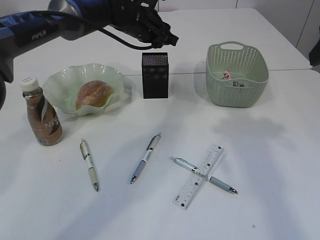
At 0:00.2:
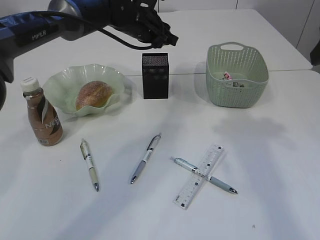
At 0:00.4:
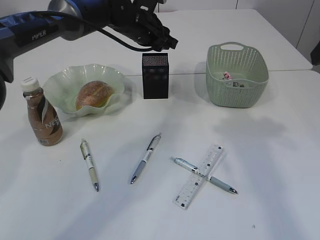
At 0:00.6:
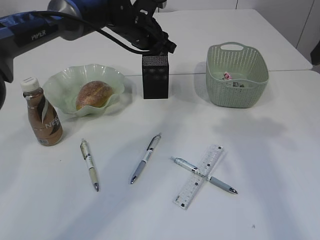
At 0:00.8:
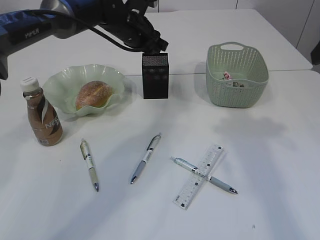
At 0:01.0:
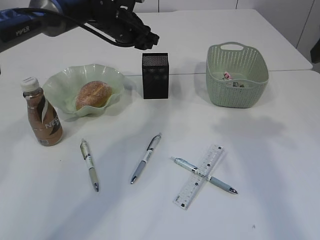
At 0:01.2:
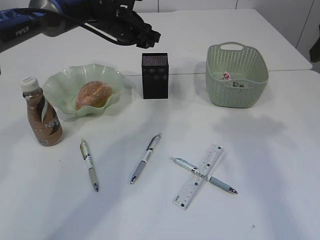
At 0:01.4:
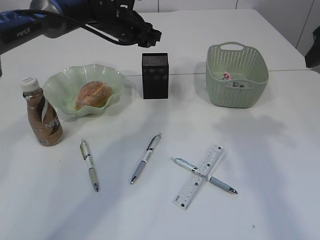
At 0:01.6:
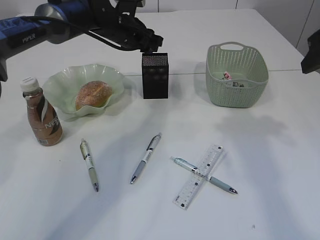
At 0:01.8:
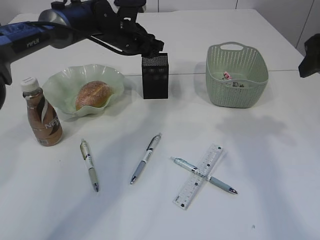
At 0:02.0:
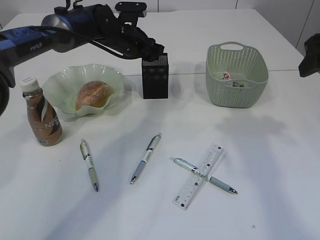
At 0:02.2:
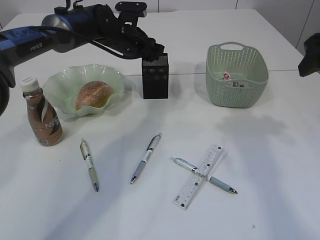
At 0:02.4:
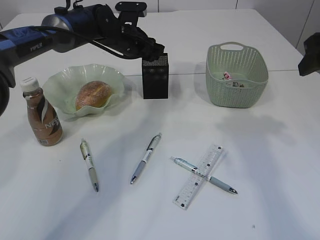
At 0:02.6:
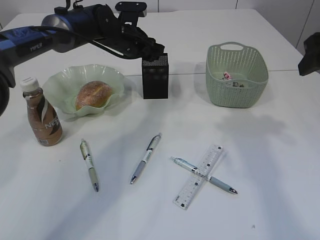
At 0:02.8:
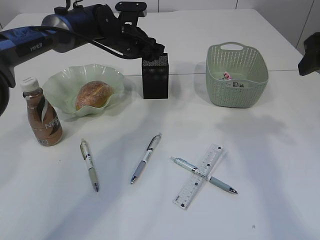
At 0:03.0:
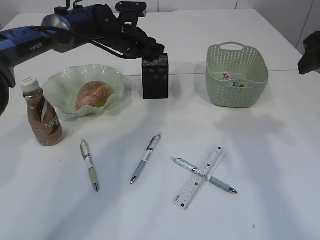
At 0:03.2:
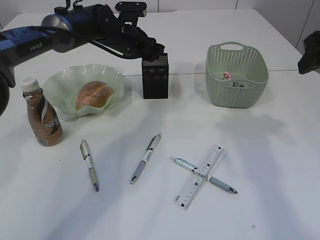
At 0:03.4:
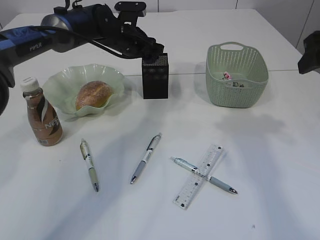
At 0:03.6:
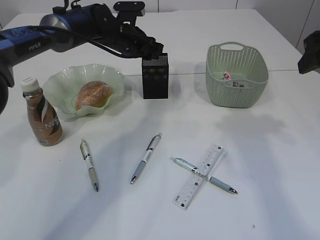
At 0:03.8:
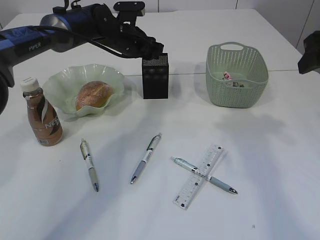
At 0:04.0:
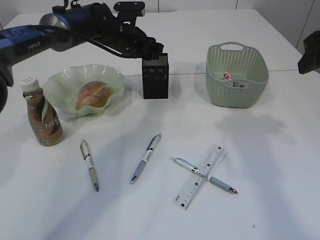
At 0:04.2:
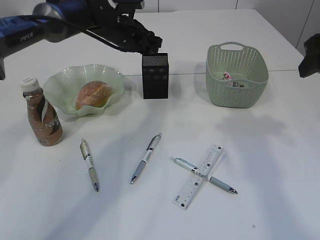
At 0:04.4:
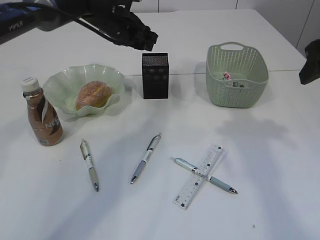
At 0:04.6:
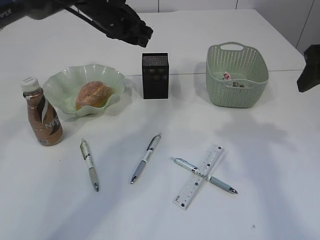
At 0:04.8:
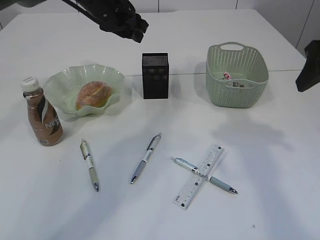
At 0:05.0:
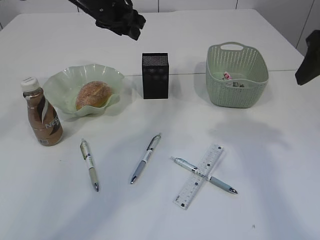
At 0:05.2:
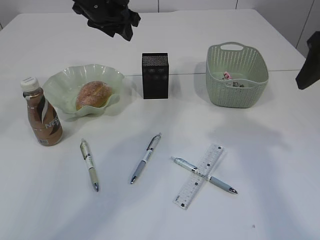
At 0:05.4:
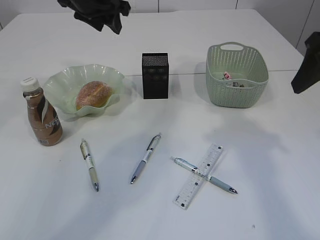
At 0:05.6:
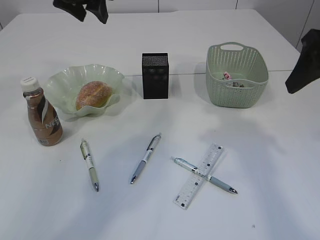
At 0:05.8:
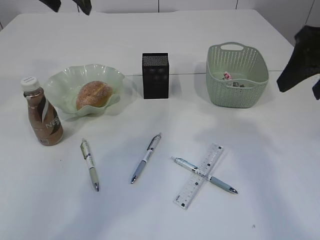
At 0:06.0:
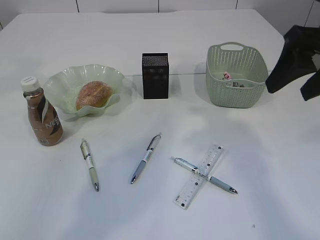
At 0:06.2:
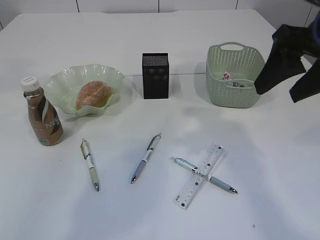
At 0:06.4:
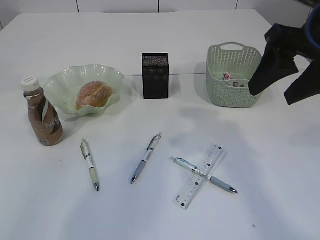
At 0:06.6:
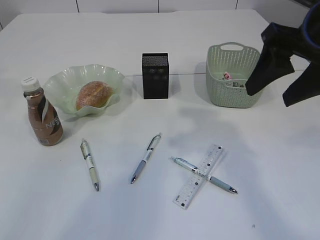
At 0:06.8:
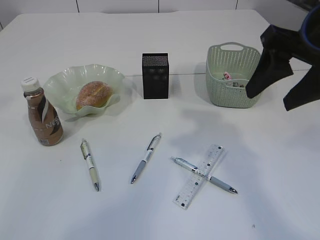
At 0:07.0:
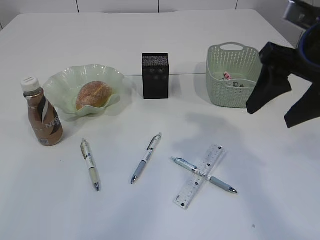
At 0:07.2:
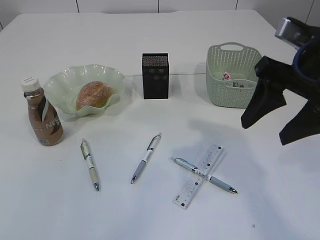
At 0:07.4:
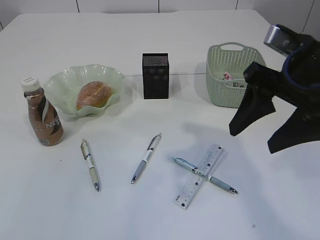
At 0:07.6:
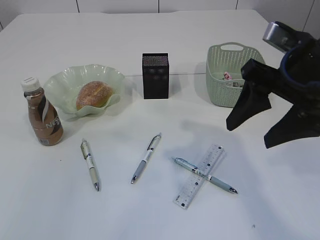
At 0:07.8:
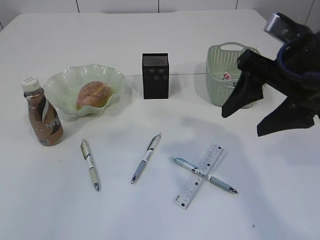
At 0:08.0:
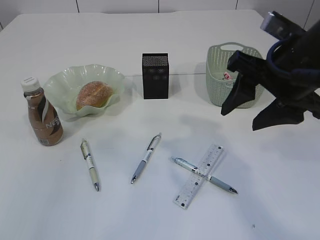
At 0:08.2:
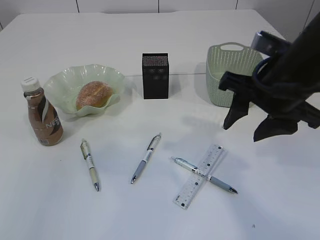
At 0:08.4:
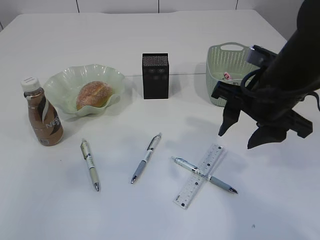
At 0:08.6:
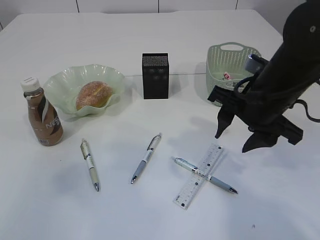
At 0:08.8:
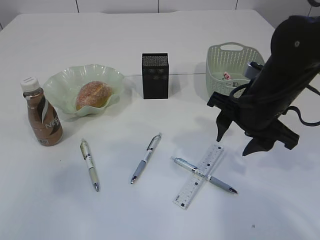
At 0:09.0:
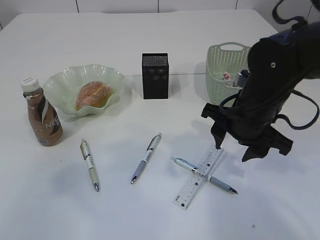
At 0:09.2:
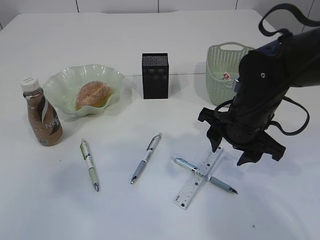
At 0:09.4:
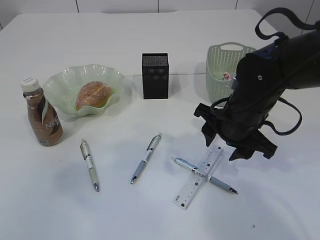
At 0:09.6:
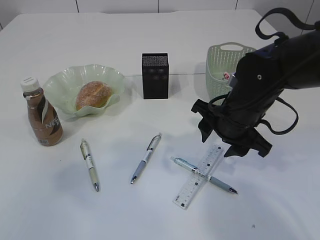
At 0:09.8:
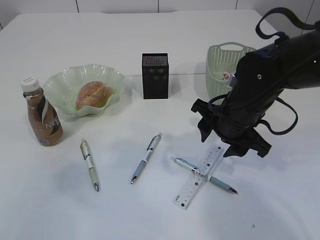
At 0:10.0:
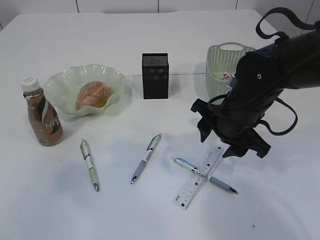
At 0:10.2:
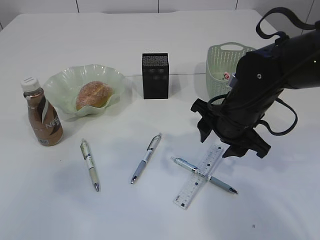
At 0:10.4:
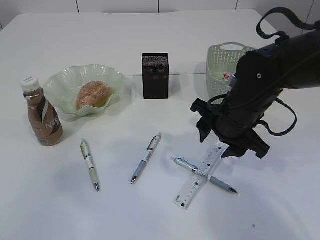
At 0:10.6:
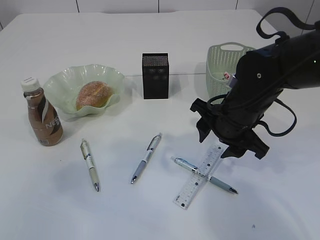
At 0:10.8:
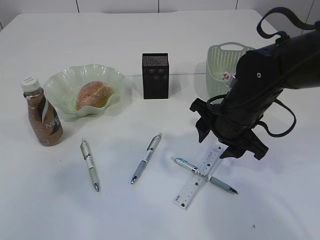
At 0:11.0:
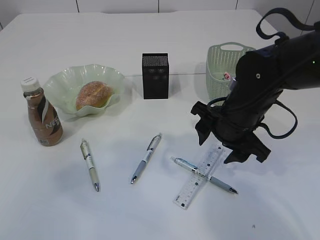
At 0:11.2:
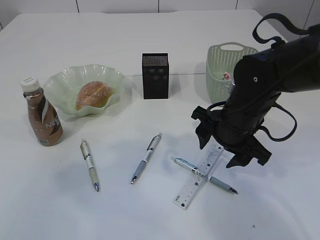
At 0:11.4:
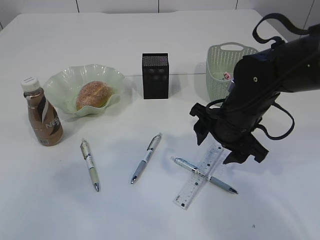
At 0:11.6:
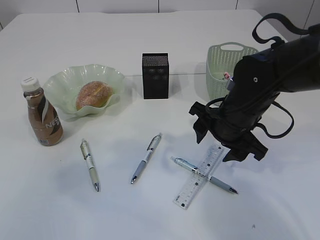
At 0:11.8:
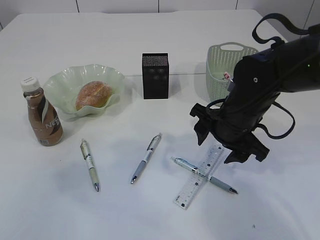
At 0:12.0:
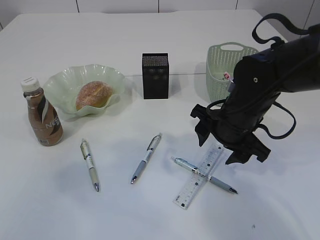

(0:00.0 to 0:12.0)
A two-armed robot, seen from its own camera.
Step, 0:00.0 - 0:04.6: Place the blue pencil sharpener into the pen holder.
0:00.0 - 0:03.0: There are only small adjustments of the grippers.
0:03.0 - 0:04.4: The grippers move only a little.
0:04.4 - 0:06.0: The left gripper travels upward, backward and to the left by about 20 cm, and opens up; the right gripper moves roughly 5 cm.
0:06.0 - 0:07.6: The left gripper goes roughly 25 cm backward, while the right gripper shifts by roughly 5 cm.
0:07.6 - 0:09.0: The right gripper travels downward and forward by approximately 10 cm. Meanwhile the left gripper travels downward by about 10 cm.
0:09.0 - 0:10.4: The grippers make only small movements.
0:10.4 - 0:12.0: Both grippers stay about where they are.

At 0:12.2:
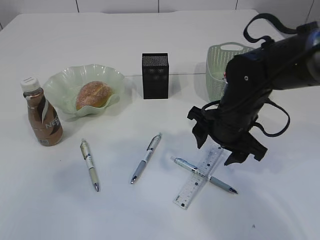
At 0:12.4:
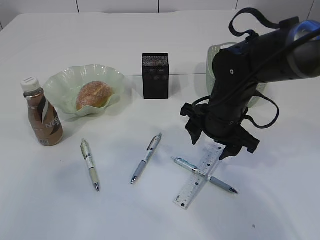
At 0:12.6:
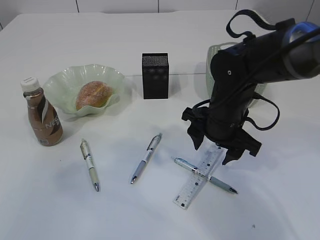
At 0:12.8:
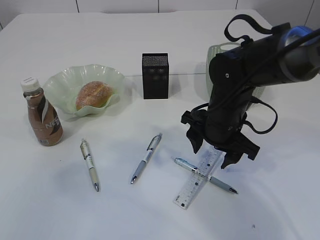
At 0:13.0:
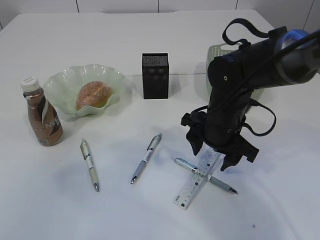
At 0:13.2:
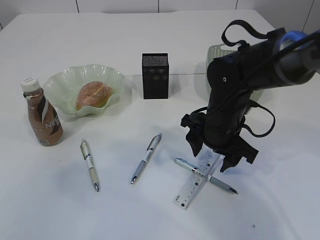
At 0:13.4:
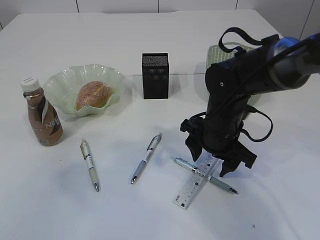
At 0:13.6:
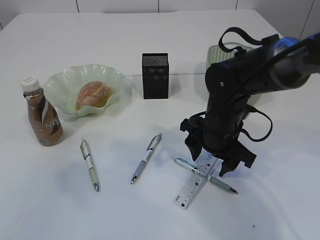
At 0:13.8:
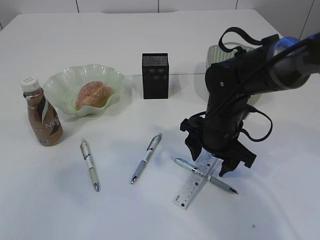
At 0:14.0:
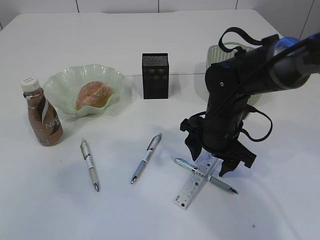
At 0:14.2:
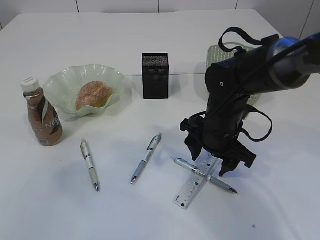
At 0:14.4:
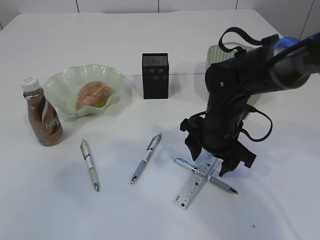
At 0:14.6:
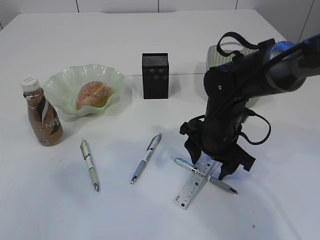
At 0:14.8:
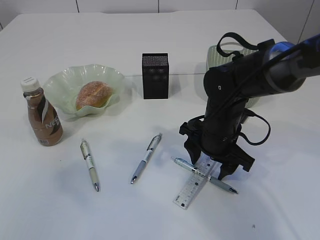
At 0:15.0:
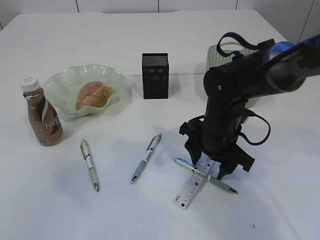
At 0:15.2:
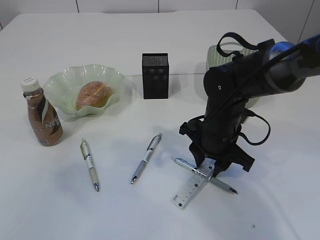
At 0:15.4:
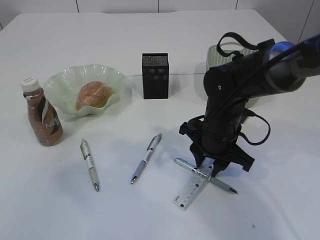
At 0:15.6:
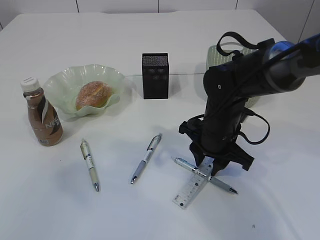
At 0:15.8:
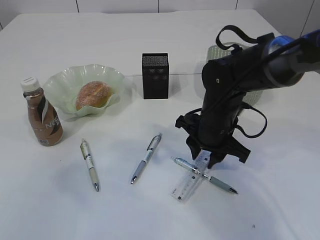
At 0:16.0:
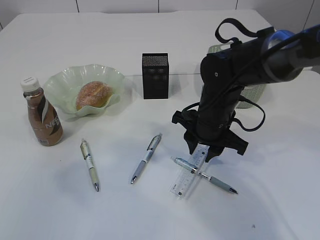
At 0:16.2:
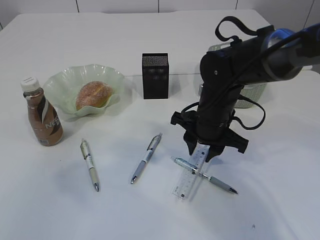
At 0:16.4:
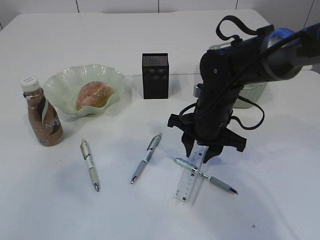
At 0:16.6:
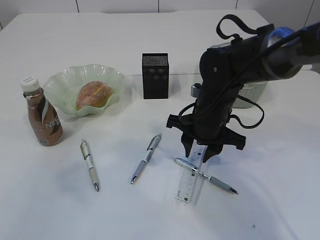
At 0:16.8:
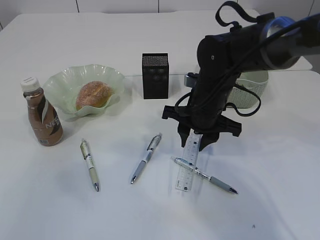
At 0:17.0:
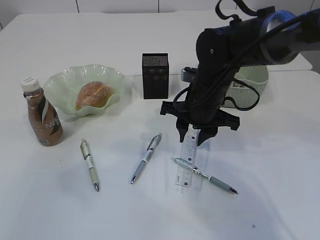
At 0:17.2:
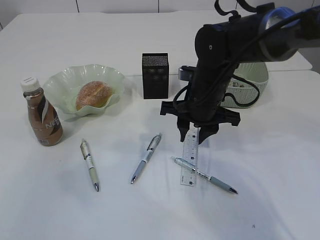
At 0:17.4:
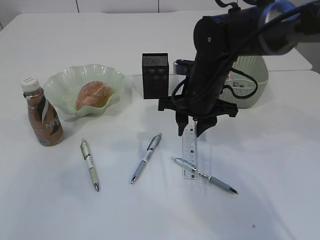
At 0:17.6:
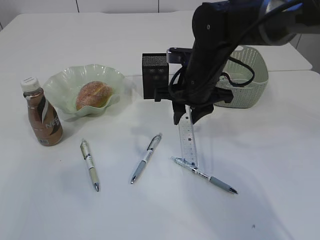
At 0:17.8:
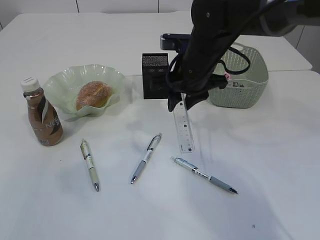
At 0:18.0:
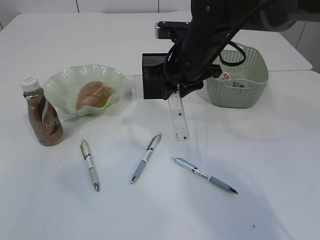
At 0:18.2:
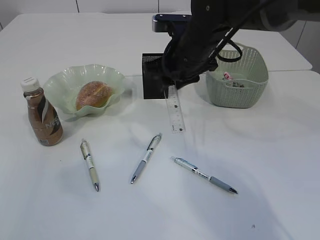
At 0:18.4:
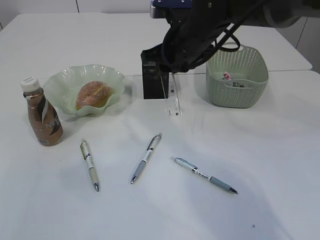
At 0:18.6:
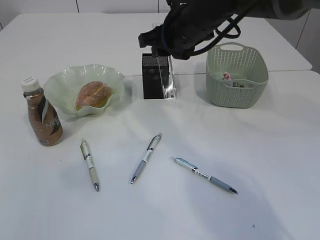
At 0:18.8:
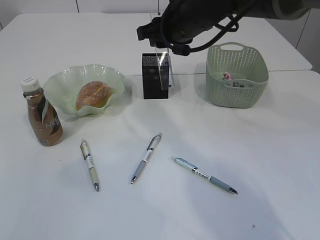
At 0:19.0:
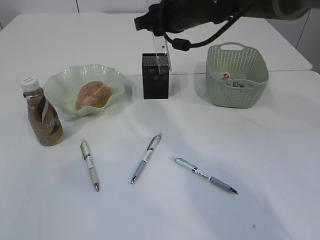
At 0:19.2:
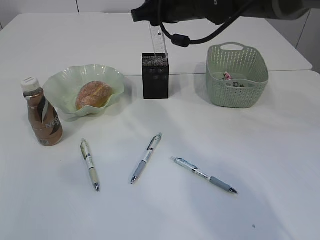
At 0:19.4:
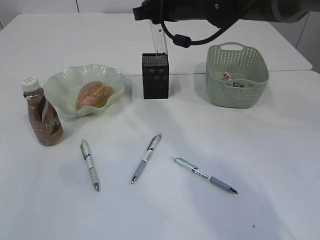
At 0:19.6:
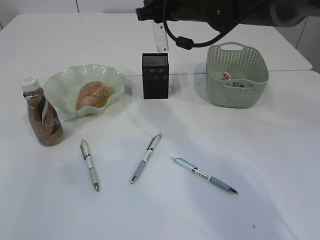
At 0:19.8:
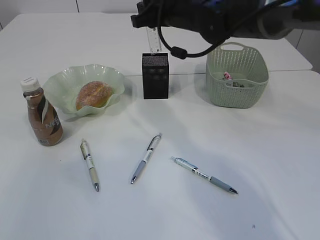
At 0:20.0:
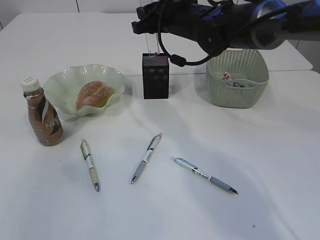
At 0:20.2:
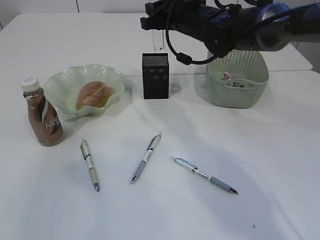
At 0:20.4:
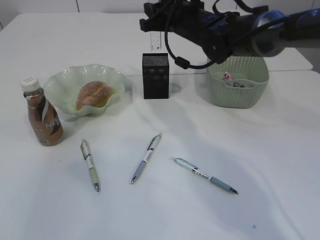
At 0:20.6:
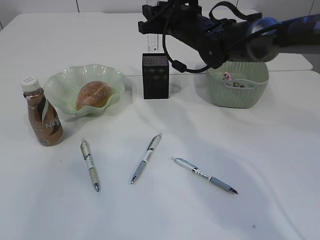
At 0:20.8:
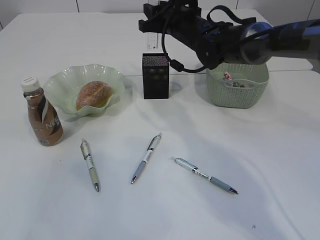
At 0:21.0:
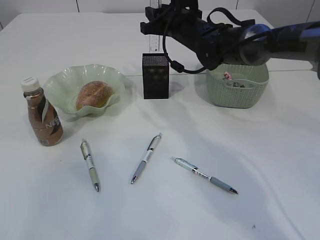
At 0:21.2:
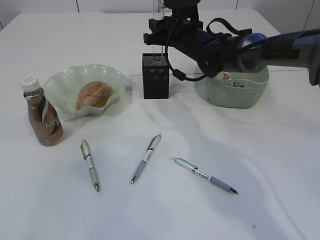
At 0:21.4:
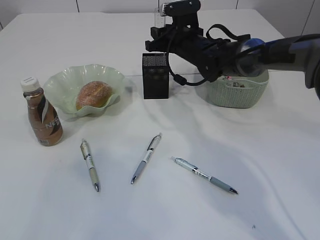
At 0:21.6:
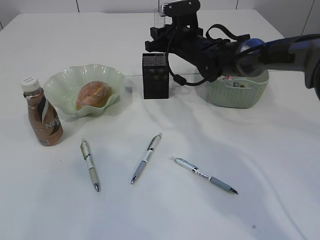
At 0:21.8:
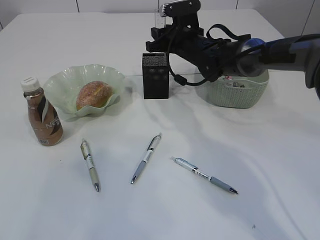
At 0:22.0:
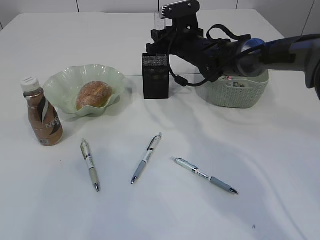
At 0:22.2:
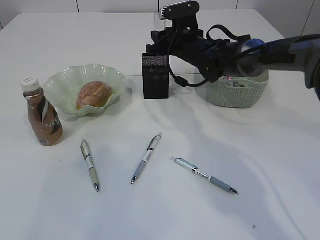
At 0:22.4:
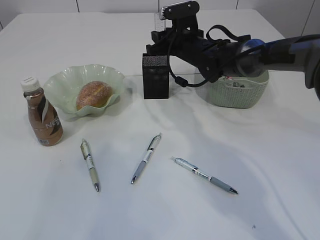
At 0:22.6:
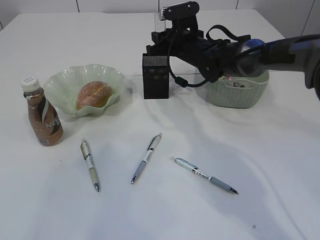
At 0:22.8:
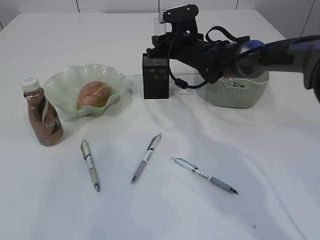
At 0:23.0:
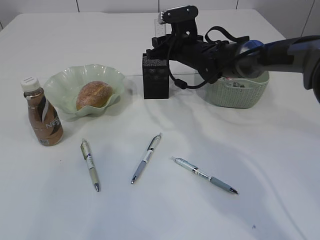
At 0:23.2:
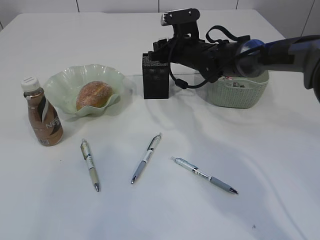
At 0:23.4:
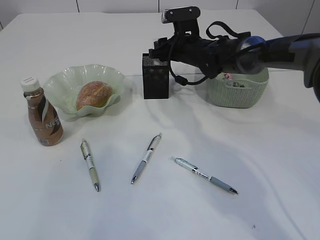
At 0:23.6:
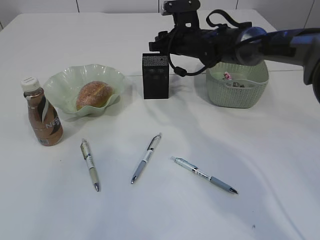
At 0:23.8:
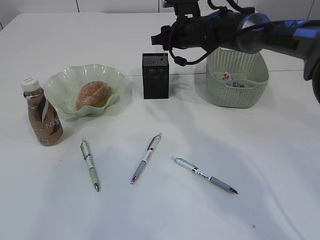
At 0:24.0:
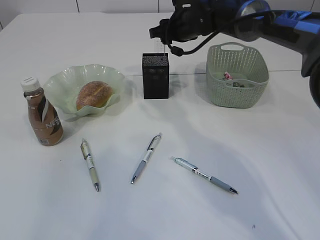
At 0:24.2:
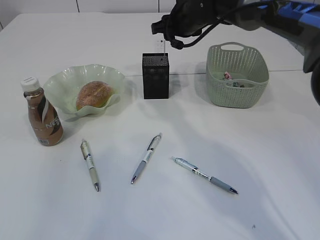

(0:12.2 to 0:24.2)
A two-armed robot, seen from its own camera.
Step, 0:12.2 - 0:17.0: pick up the ruler.
0:12.2 - 0:13.8: There are only small adjustments of the grippers.
0:13.8 - 0:15.2: Both grippers stay put.
0:15.2 - 0:16.6: There are only small adjustments of the grippers.
0:16.6 - 0:18.2: The right gripper goes roughly 10 cm upward and forward.
0:18.2 - 0:19.8: The right gripper heads forward, covering roughly 5 cm.
0:19.8 - 0:21.2: The right gripper travels downward and forward by some 10 cm.
0:21.2 - 0:22.6: The grippers make only small movements.
0:22.6 - 0:24.2: The right gripper heads upward, covering roughly 5 cm.
